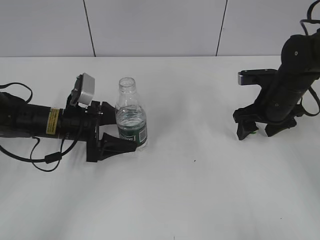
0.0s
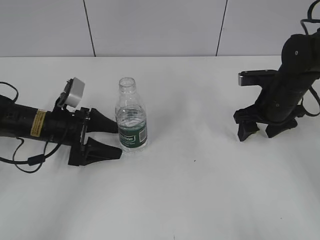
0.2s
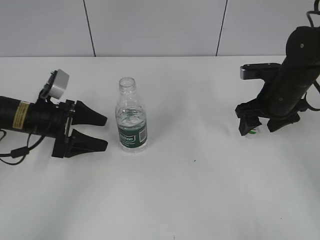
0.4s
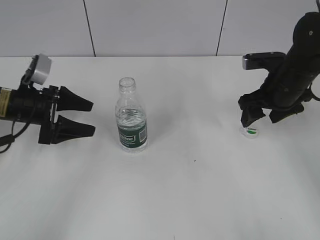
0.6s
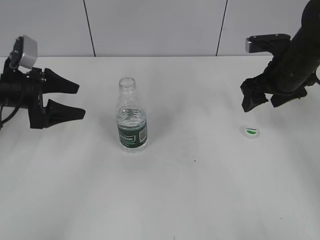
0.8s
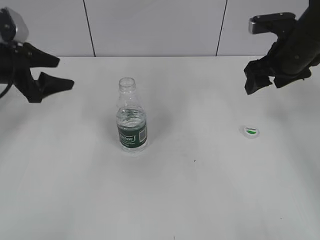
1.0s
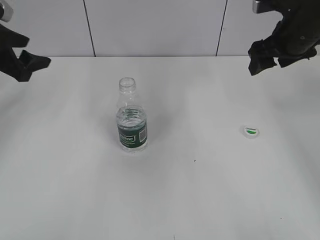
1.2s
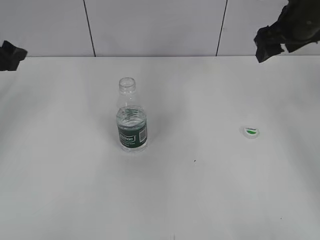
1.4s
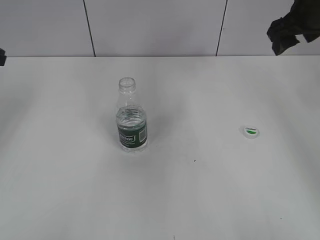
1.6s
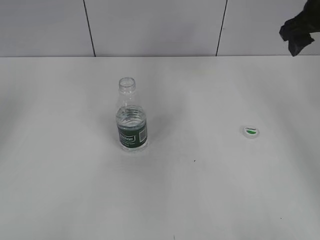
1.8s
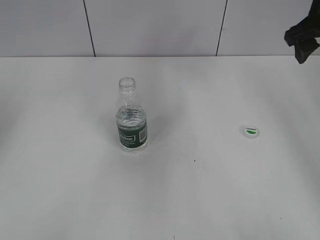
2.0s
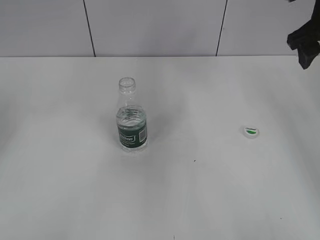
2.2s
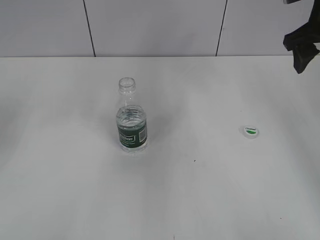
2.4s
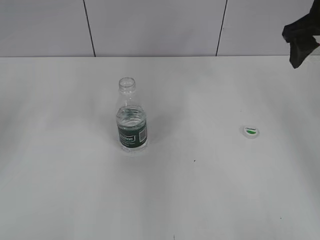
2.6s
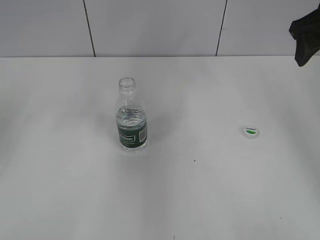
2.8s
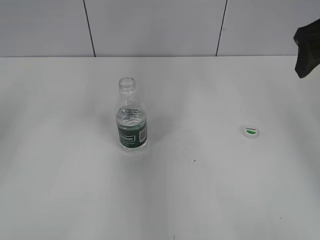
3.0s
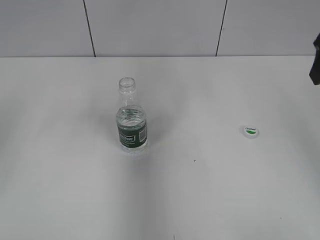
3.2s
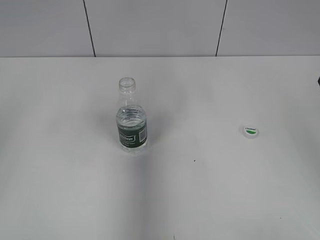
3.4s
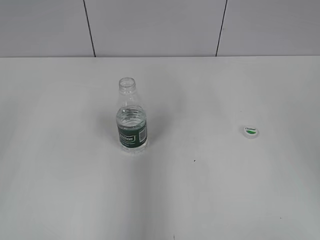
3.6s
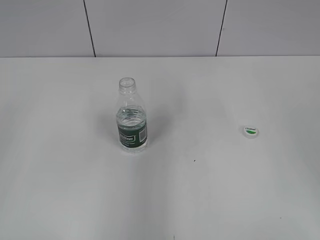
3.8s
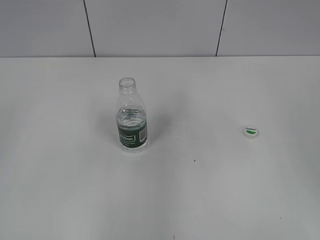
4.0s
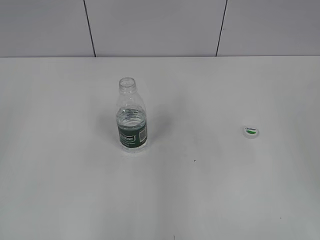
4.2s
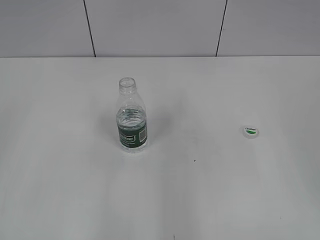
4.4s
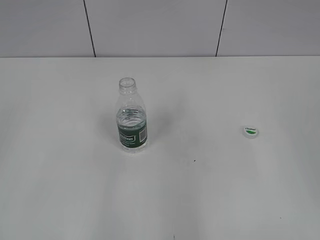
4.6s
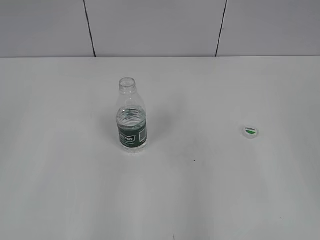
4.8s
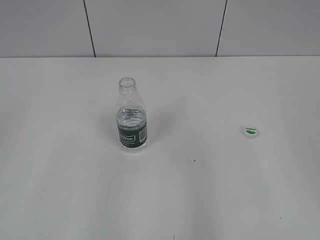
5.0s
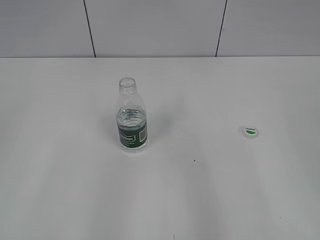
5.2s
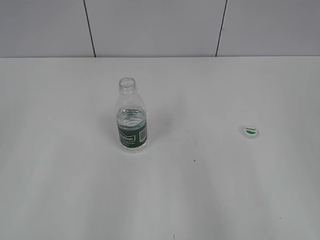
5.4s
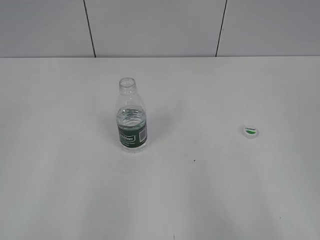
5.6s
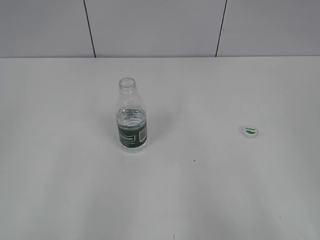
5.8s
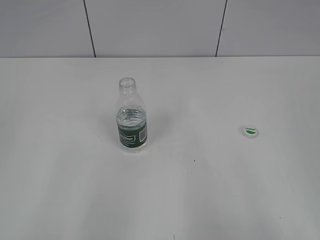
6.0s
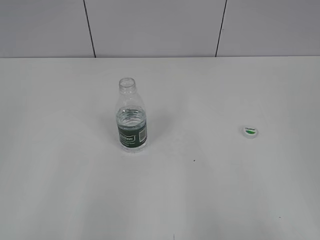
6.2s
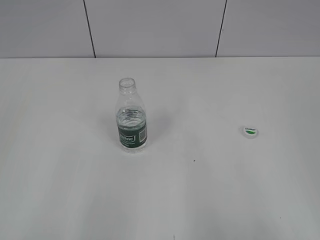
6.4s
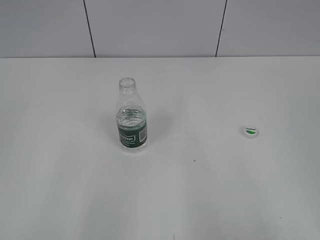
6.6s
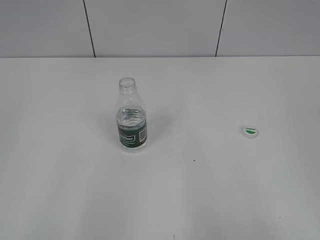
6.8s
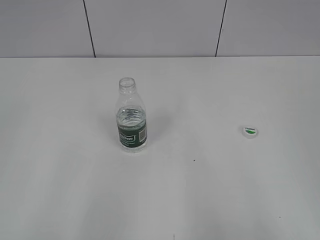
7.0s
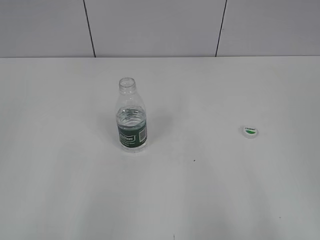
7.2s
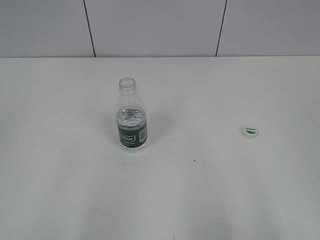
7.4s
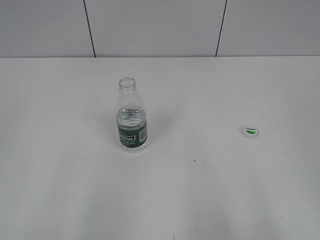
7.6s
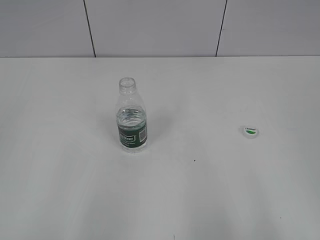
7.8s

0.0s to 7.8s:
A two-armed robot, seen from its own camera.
0.0s to 1.6s: The right gripper travels upward by roughly 15 cm; the left gripper moves to the left and upward, about 25 cm, and closes up.
1.6s to 3.2s: The right gripper goes roughly 10 cm backward.
3.2s to 4.6s: Both grippers travel together backward, about 15 cm.

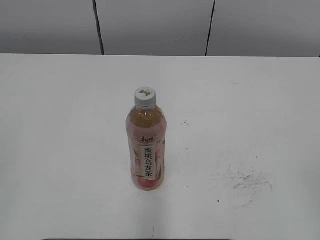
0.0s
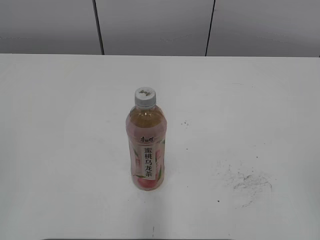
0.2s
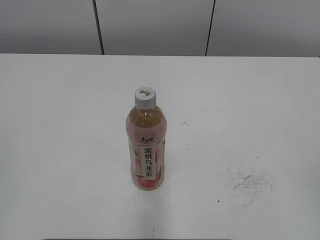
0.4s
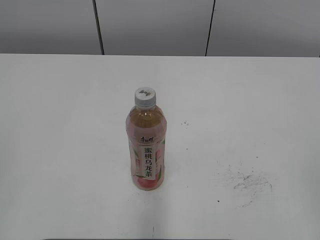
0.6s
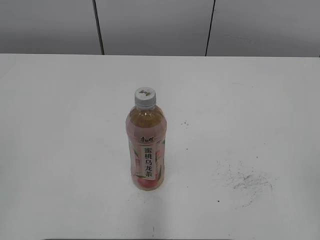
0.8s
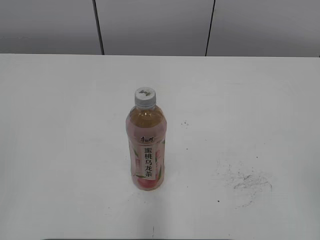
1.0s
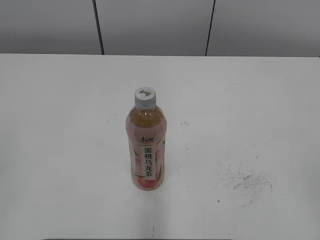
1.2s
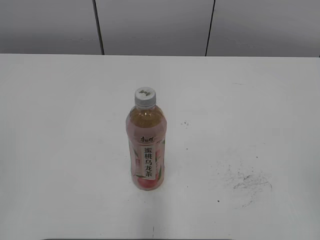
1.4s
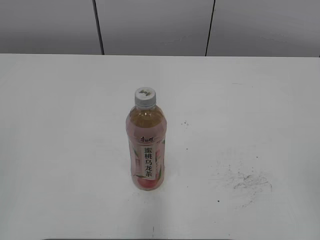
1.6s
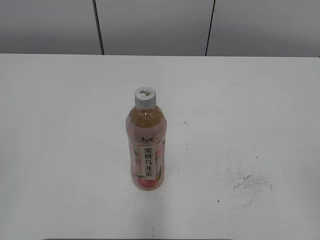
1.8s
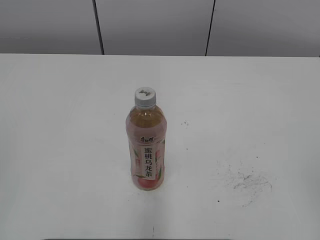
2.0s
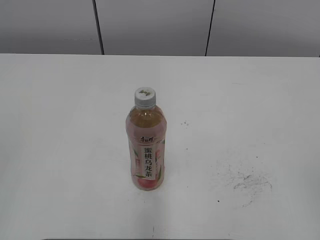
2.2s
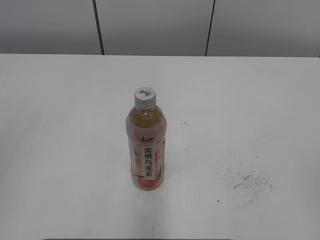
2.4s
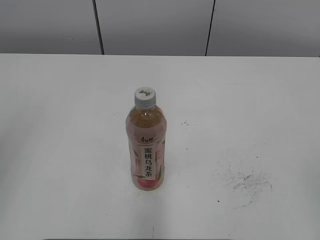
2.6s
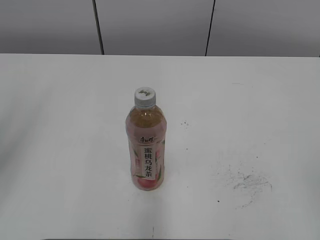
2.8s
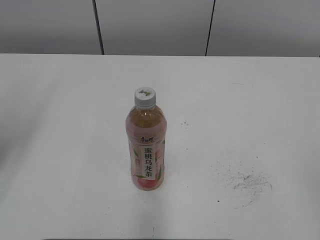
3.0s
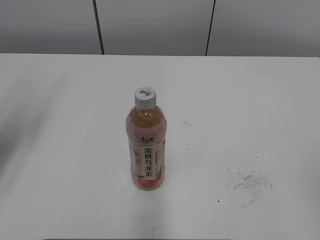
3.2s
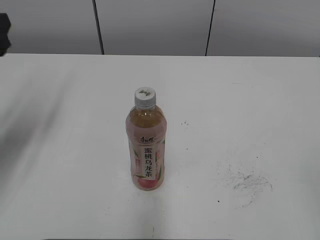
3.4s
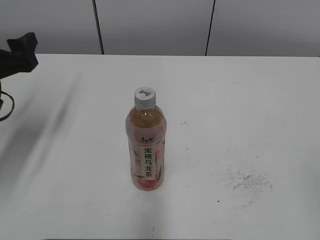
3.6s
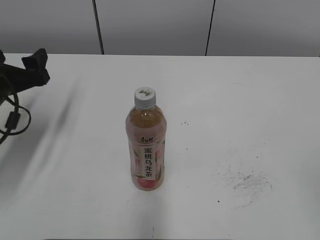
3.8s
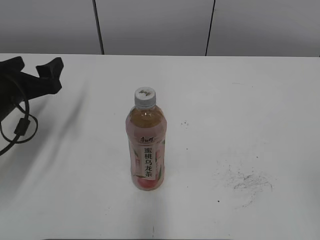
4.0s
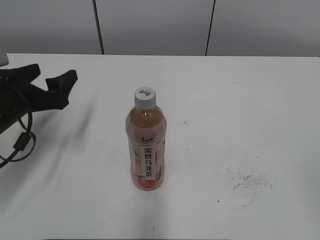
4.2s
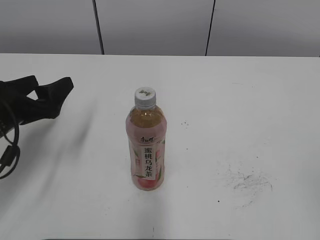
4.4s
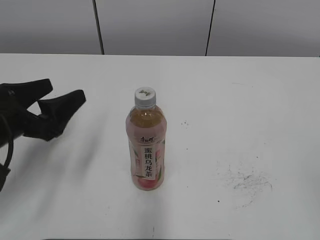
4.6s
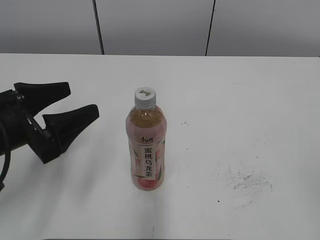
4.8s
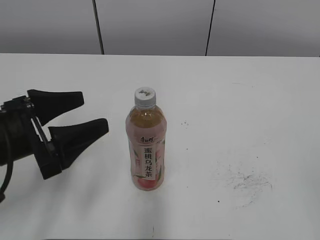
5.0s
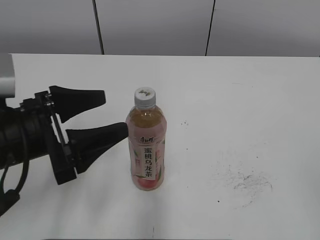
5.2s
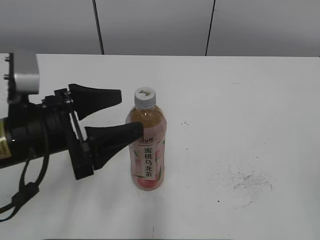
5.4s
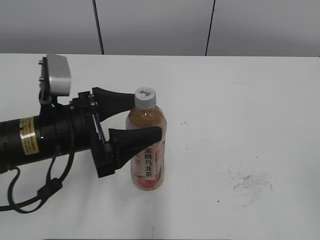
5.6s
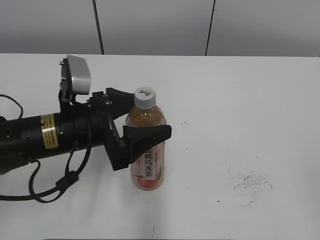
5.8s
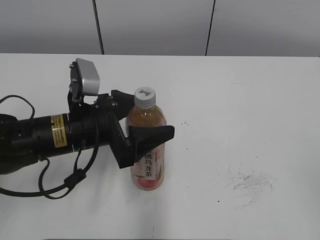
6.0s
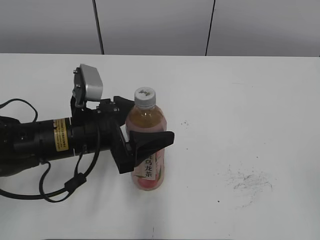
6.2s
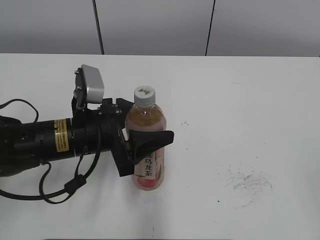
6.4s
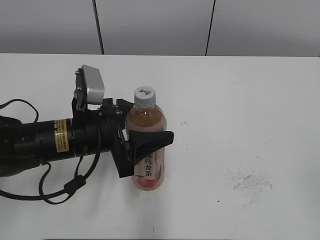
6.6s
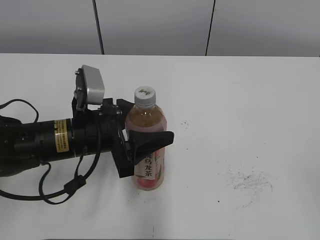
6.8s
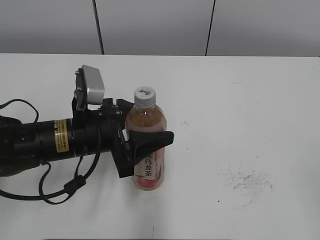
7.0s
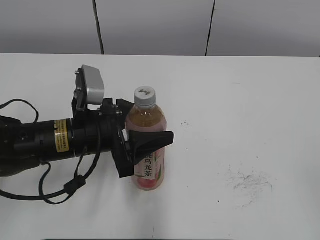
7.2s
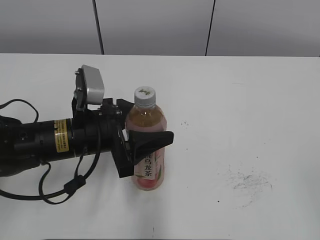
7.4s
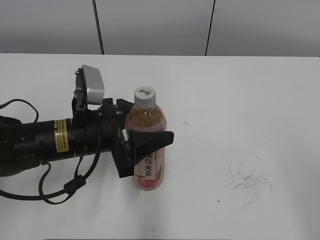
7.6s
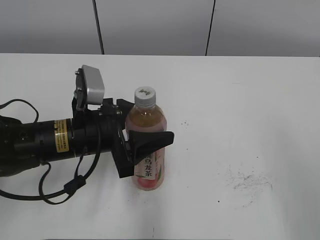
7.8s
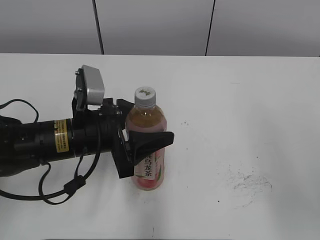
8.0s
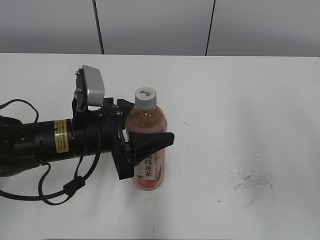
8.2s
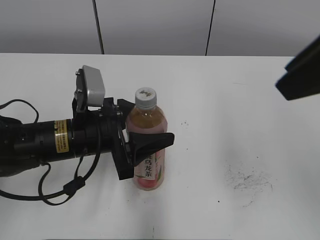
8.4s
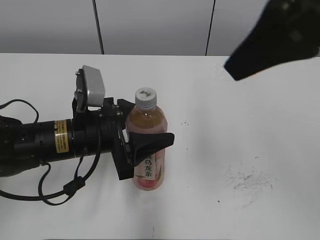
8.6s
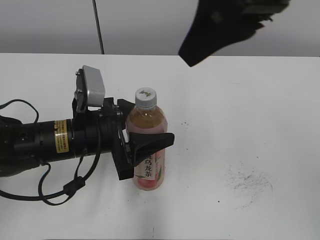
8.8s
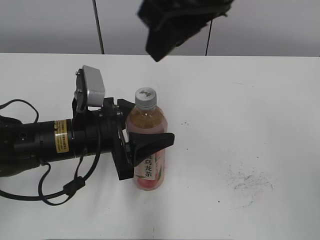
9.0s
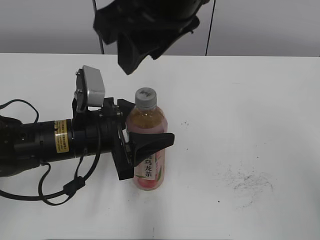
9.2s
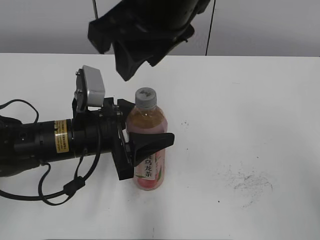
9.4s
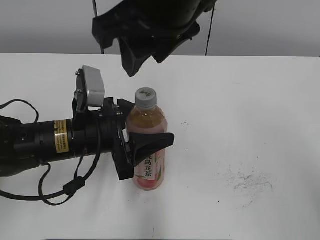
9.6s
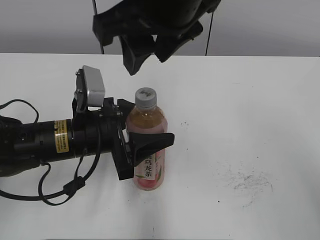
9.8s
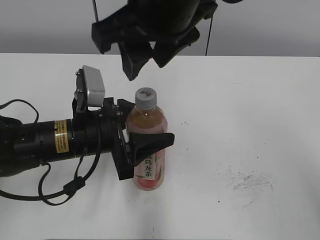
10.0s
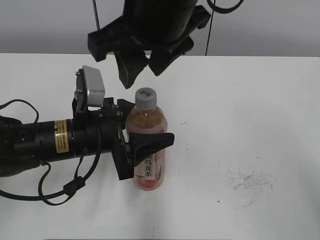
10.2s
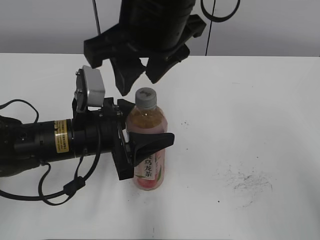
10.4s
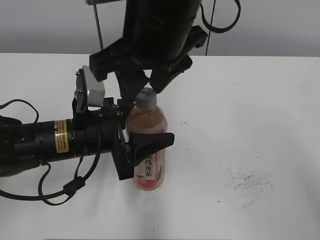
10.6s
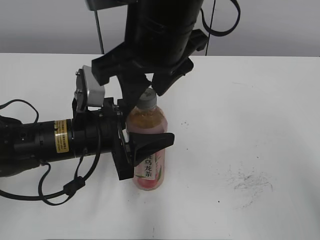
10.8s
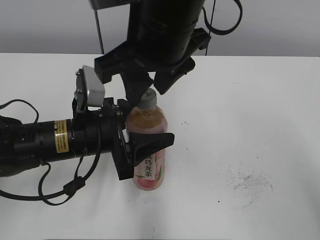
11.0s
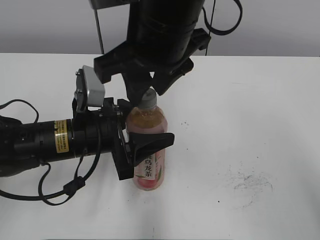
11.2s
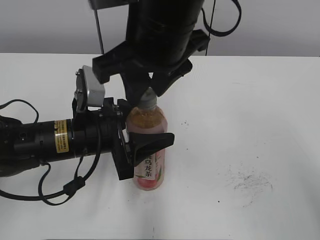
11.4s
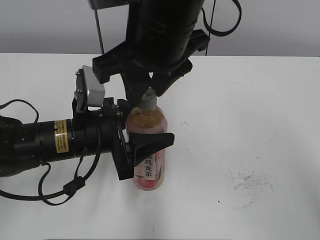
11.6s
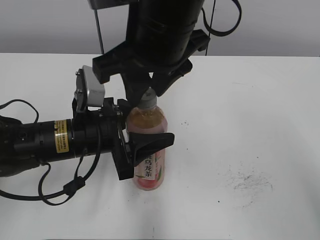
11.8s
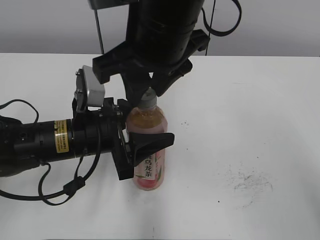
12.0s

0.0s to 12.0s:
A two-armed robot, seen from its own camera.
Step, 0.0s to 8.8s: Grab the Peach Oolong Tea with the left hand.
1.6s to 3.0s: The left gripper heads forward, covering approximately 20 cm, and opens its fingers.
3.0s to 4.4s: The left gripper travels downward and forward by about 15 cm.
4.4s to 6.0s: The left gripper heads to the right, covering approximately 10 cm.
6.0s to 7.6s: The left gripper closes.
7.6s to 9.0s: The right gripper shifts about 35 cm to the left and forward, and closes.
9.0s to 10.4s: The right gripper is displaced to the left and downward by roughly 5 cm.
10.4s to 12.0s: The grippers make only small movements.

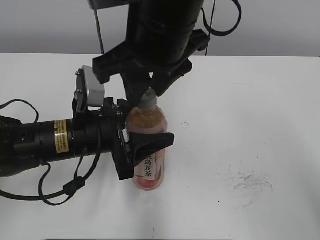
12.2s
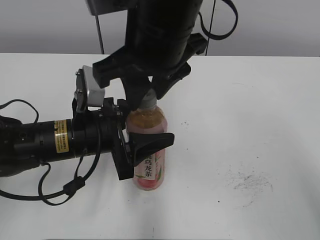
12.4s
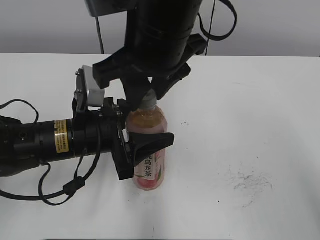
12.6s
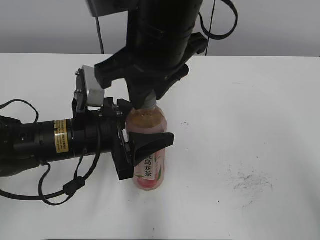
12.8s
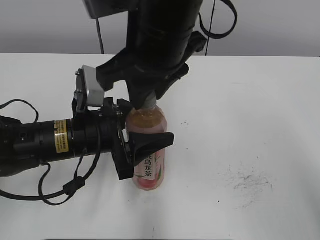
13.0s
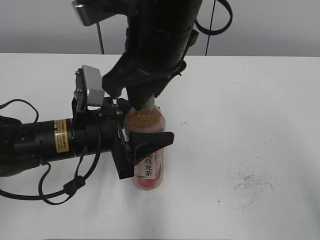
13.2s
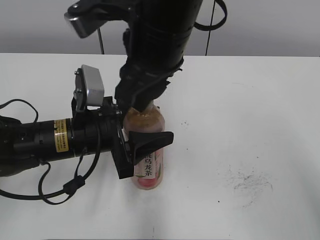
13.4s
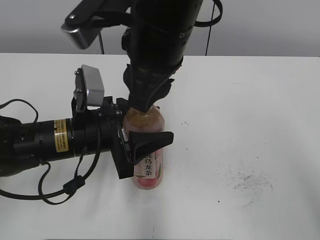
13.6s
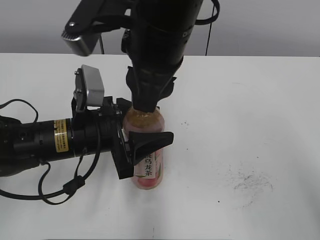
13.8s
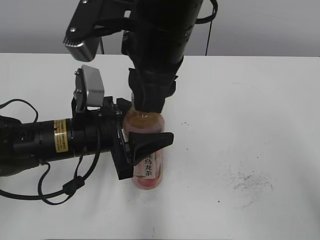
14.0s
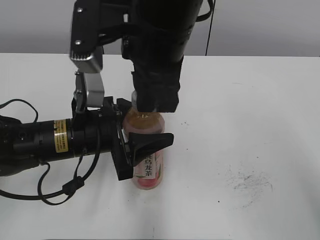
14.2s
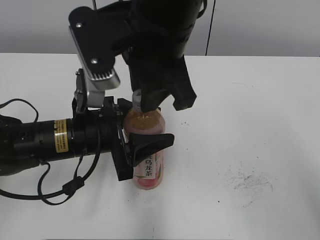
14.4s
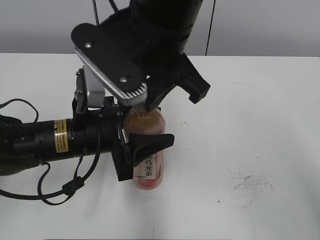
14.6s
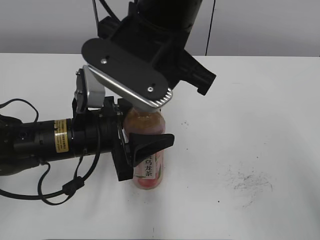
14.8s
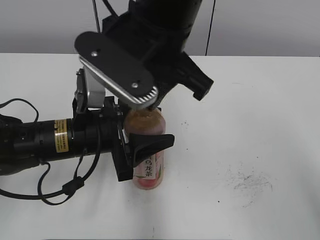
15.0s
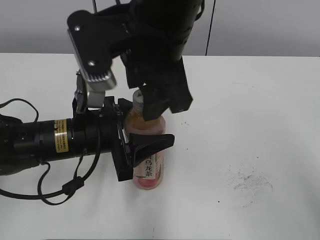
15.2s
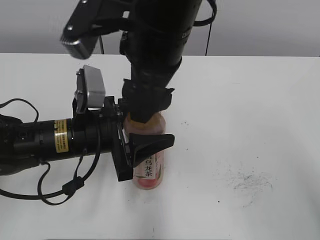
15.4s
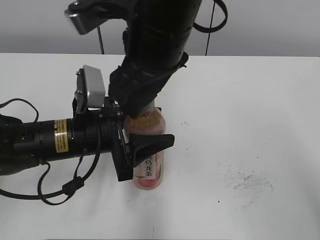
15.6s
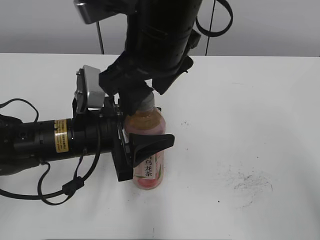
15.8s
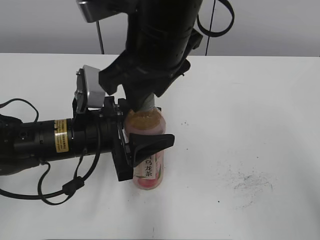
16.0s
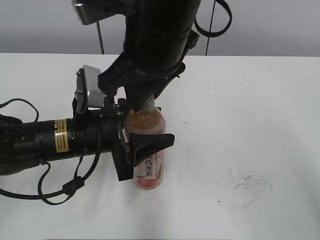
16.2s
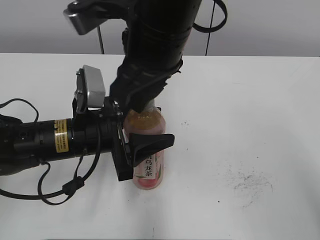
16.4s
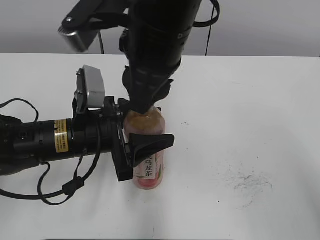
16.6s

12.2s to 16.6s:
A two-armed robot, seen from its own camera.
13.6s to 15.2s: The right gripper opens.
15.2s to 16.6s: The right gripper closes up.
